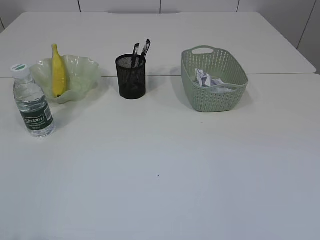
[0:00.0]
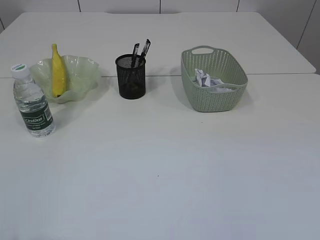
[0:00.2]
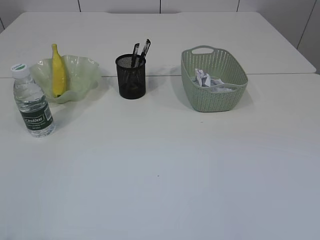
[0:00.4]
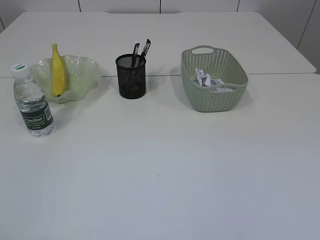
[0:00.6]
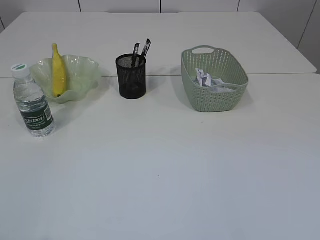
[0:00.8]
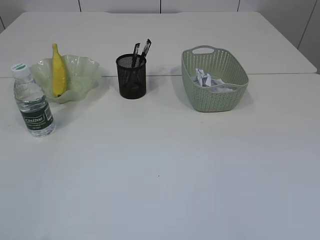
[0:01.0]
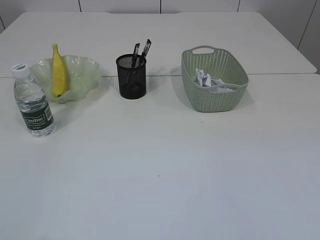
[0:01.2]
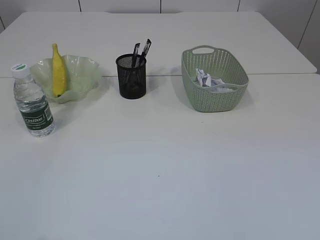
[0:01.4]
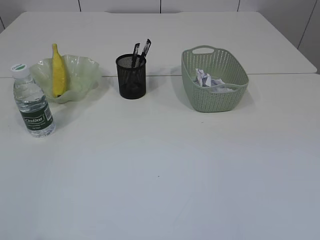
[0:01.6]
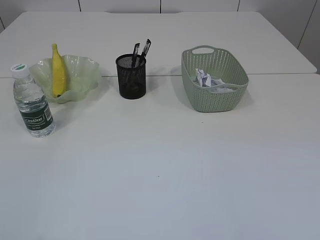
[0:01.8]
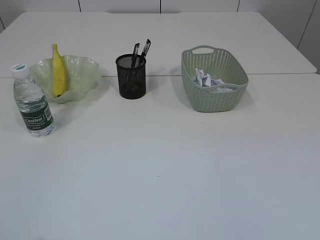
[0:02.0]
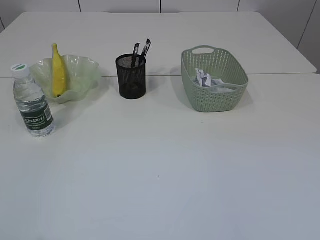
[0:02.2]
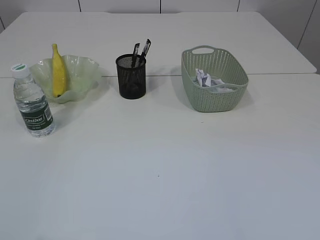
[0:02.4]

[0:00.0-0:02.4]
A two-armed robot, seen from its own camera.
0:01.2 to 0:02.4: Neither gripper changes place.

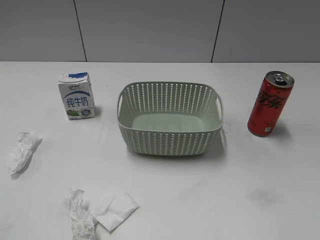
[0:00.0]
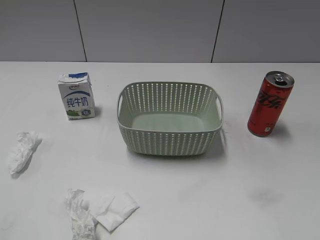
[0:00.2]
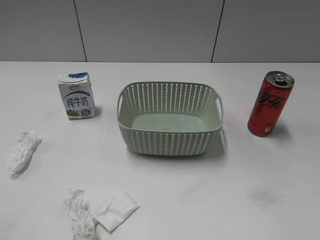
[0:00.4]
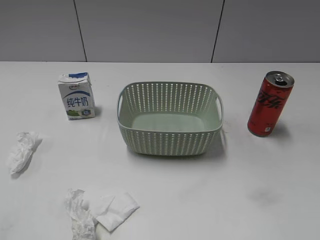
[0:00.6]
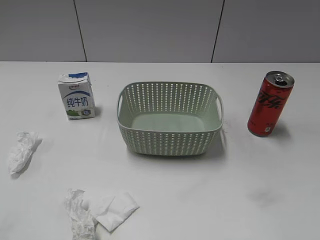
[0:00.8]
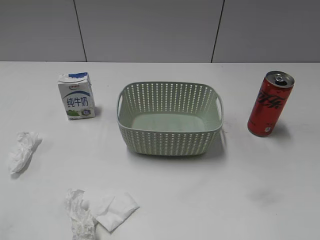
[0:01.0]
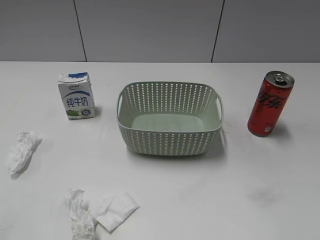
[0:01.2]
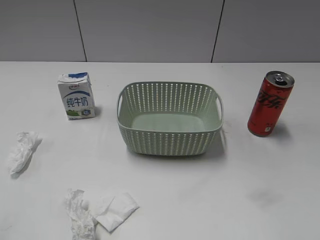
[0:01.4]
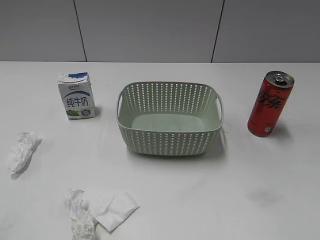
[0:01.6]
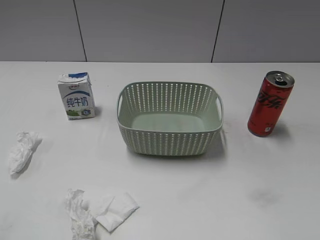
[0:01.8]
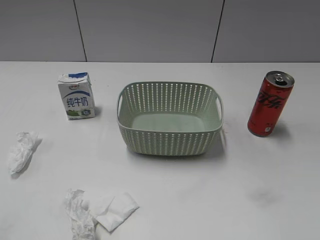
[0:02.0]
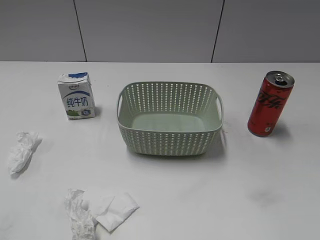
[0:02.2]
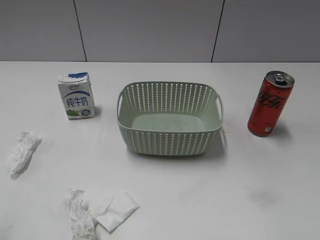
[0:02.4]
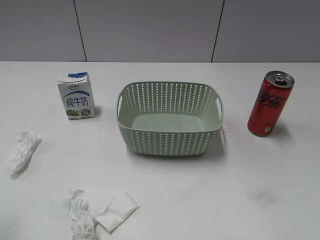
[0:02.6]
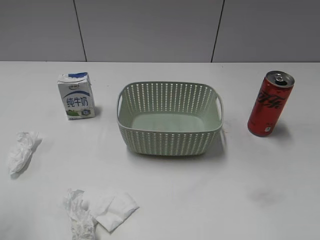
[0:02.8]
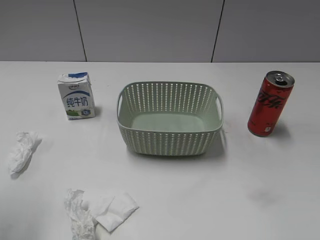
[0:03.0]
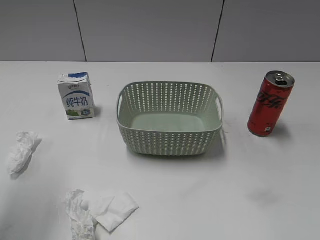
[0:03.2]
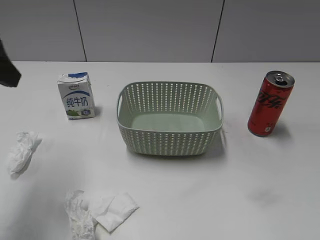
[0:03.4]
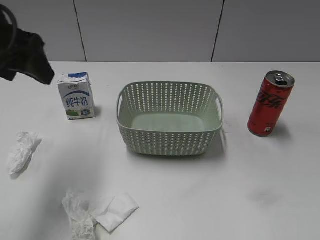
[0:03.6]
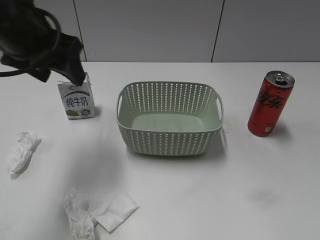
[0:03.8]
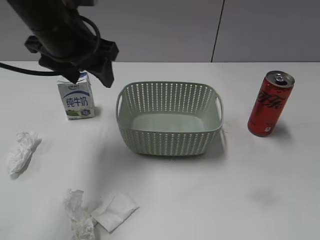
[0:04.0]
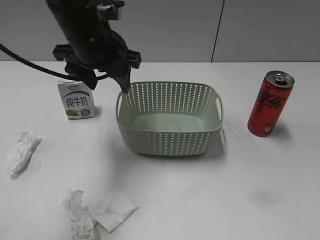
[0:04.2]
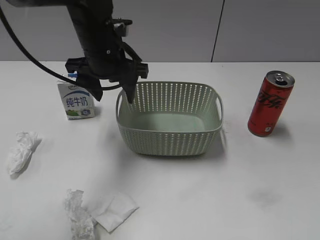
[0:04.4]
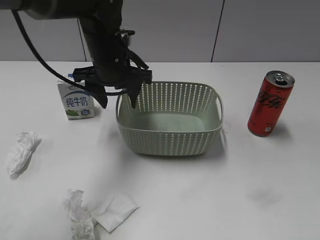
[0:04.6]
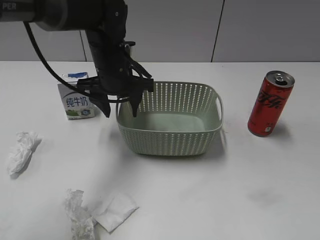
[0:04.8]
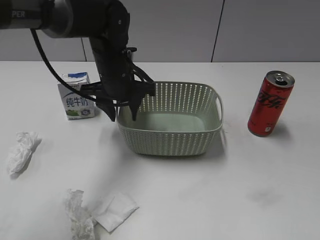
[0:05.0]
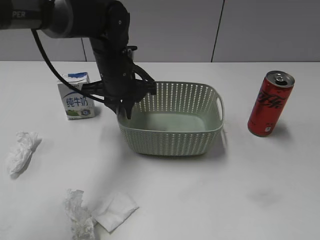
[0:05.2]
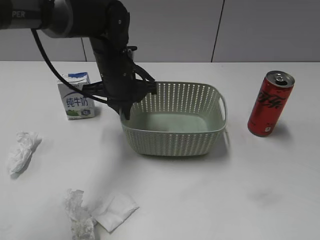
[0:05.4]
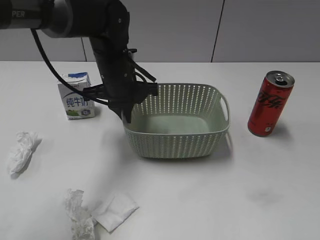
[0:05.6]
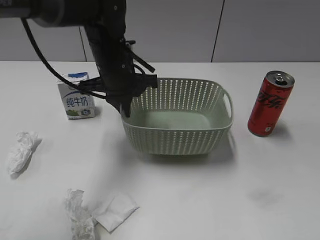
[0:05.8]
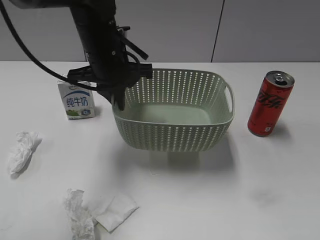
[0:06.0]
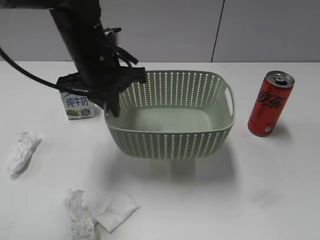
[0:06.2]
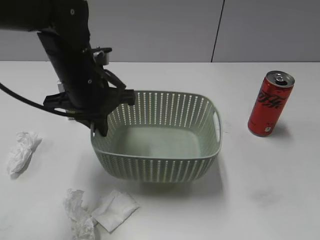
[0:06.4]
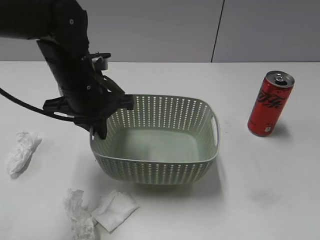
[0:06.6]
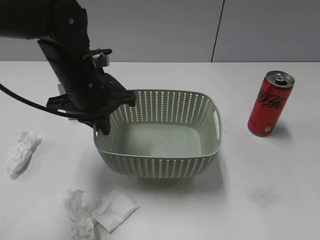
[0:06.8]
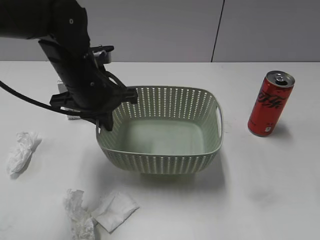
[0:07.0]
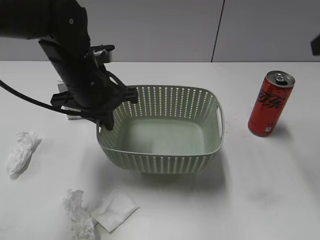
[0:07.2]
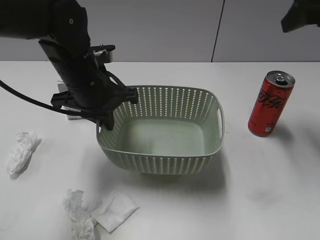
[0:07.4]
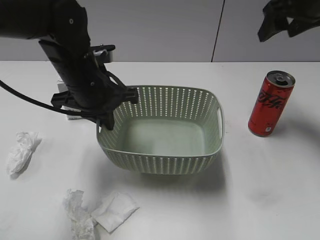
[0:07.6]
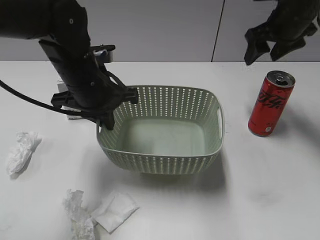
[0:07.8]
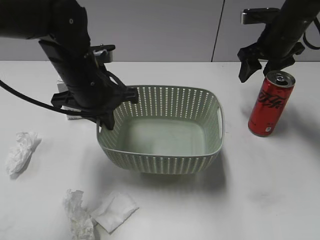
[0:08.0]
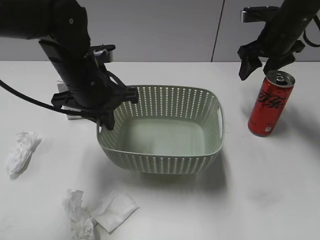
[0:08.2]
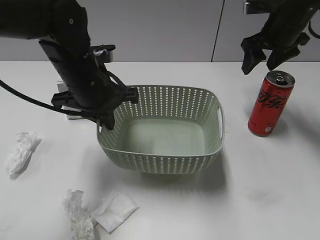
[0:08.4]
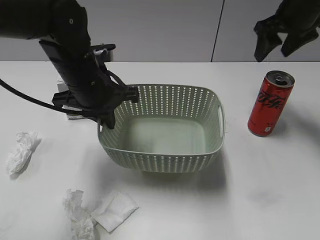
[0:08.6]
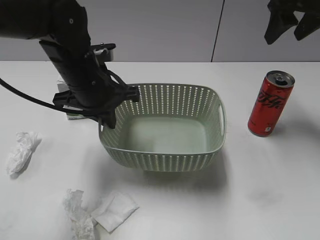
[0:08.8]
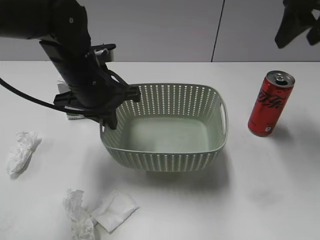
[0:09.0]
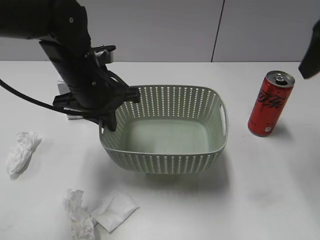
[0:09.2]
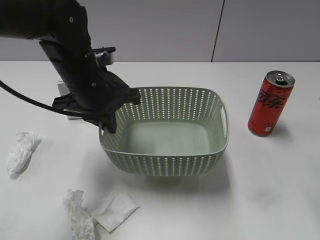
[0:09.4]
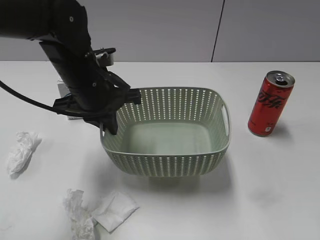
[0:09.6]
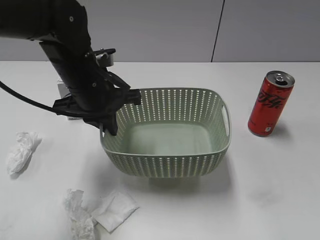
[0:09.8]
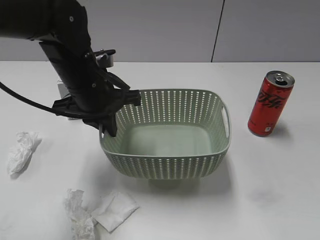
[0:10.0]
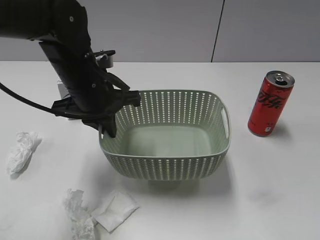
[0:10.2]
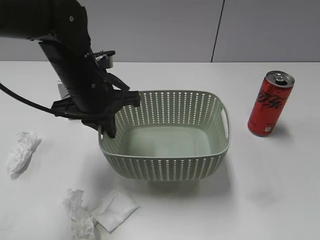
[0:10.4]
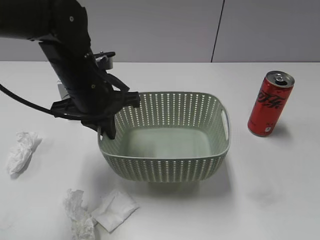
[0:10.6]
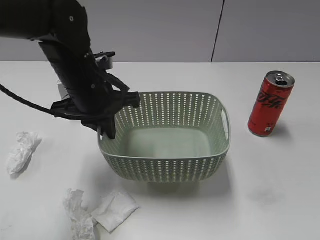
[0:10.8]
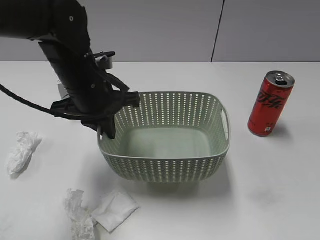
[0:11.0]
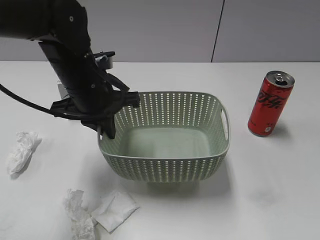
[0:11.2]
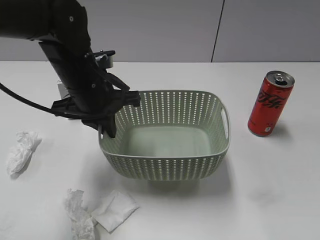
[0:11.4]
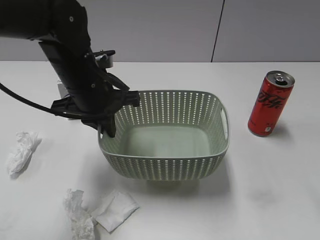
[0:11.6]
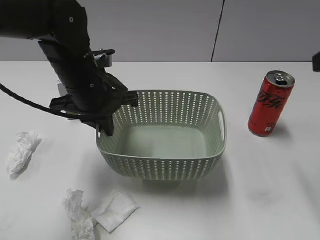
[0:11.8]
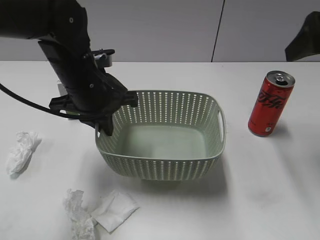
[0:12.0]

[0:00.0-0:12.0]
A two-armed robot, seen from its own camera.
Step, 0:03.4 to 0:05.4: Grasp the basket with left gripper.
Step, 0:05.6 to 0:07.0: Lift the basket with left gripper.
0:01.6 to 0:03.0: The left gripper goes about 15 cm forward.
0:03.0 to 0:04.4: The left gripper goes roughly 30 cm to the right, forward and downward.
0:04.4 to 0:06.0: The left gripper closes its fingers.
0:06.0 to 0:07.6: The right gripper is displaced forward by some 40 cm, and opens.
0:07.6 to 0:09.0: The right gripper shifts about 15 cm backward and upward.
0:09.0 to 0:10.4: The right gripper moves backward, approximately 30 cm.
0:10.4 to 0:12.0: The right gripper is displaced forward by about 30 cm, and opens up.

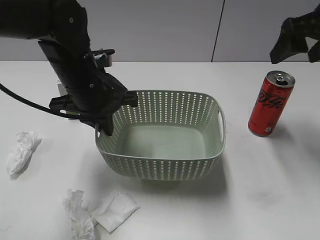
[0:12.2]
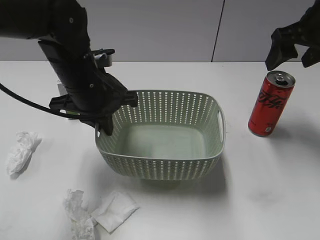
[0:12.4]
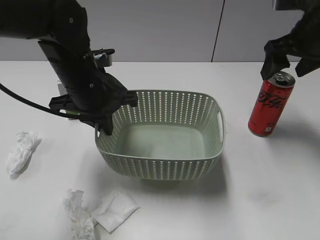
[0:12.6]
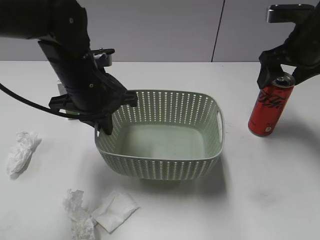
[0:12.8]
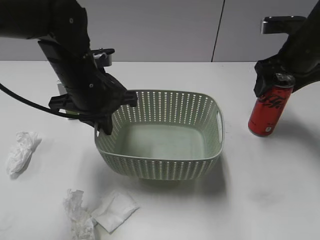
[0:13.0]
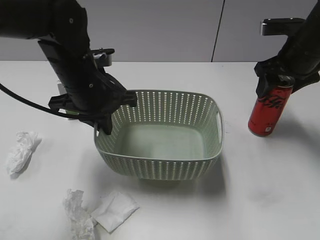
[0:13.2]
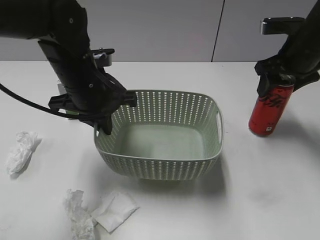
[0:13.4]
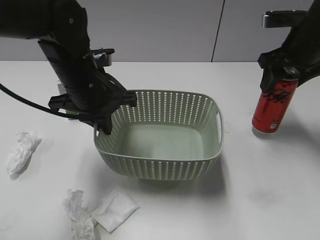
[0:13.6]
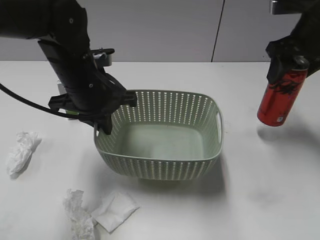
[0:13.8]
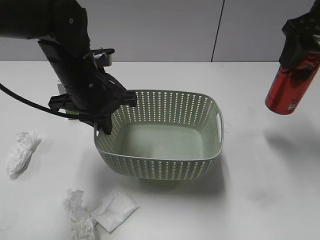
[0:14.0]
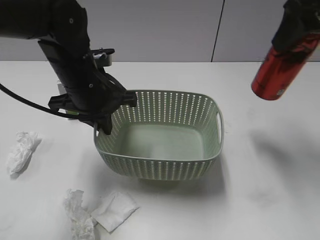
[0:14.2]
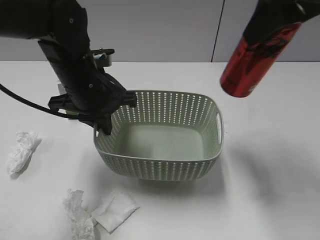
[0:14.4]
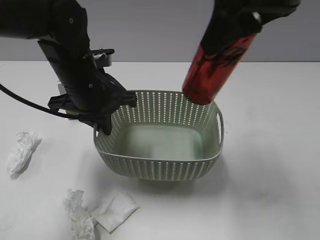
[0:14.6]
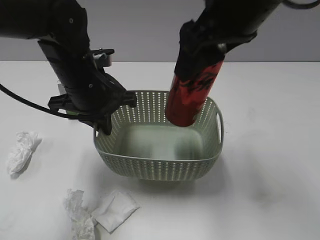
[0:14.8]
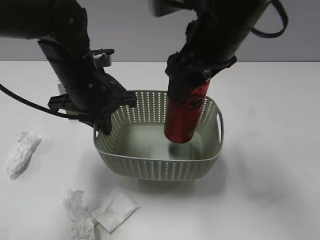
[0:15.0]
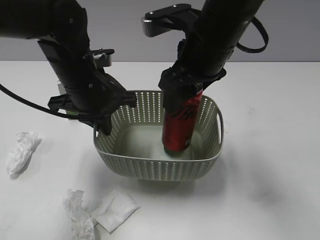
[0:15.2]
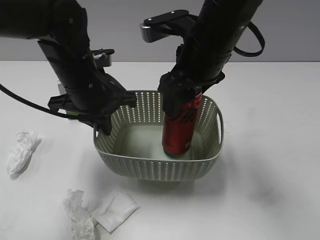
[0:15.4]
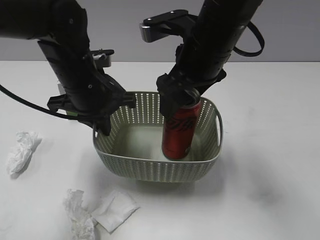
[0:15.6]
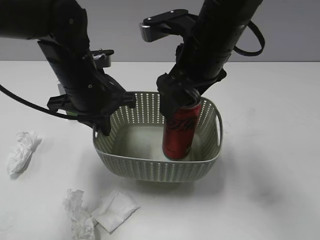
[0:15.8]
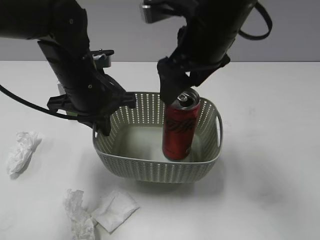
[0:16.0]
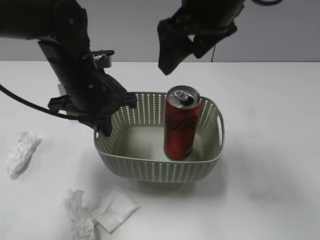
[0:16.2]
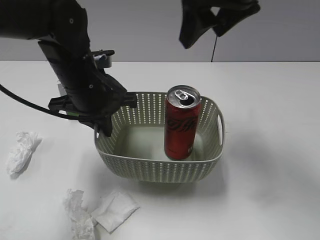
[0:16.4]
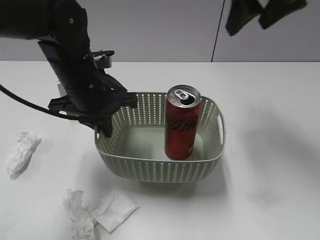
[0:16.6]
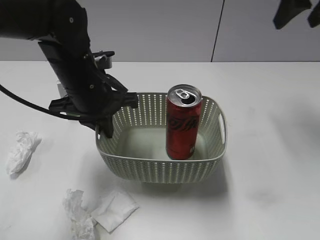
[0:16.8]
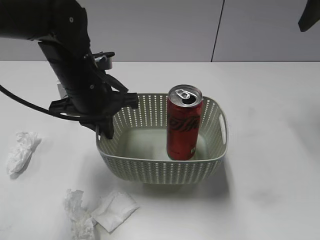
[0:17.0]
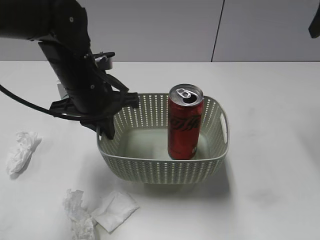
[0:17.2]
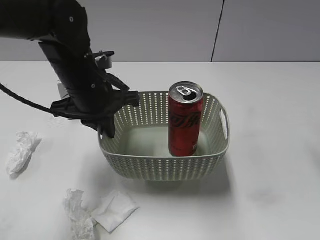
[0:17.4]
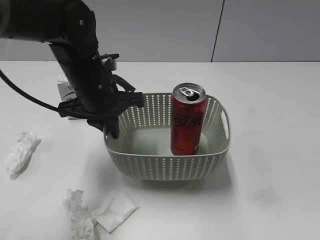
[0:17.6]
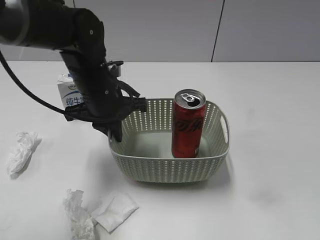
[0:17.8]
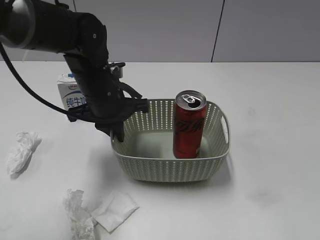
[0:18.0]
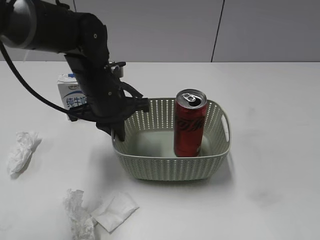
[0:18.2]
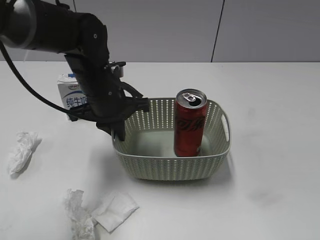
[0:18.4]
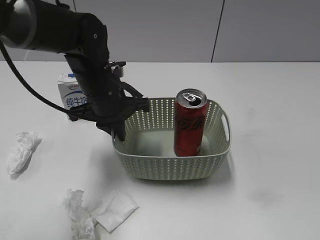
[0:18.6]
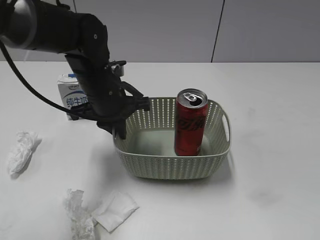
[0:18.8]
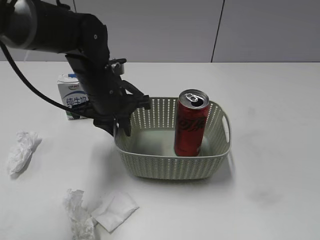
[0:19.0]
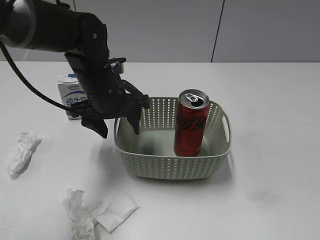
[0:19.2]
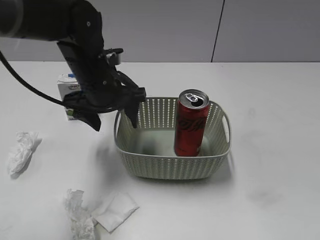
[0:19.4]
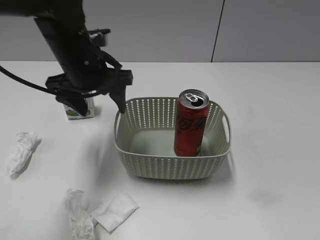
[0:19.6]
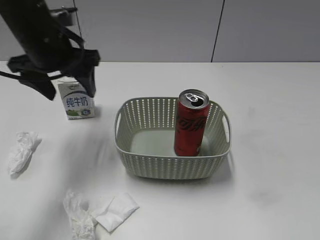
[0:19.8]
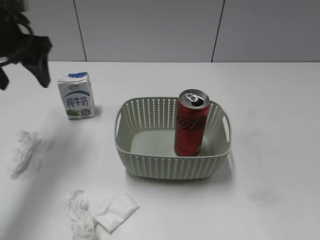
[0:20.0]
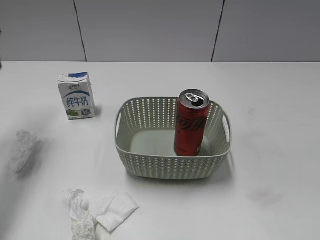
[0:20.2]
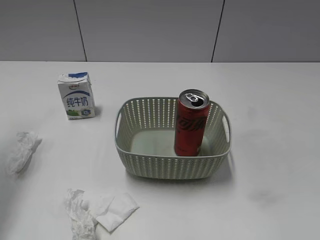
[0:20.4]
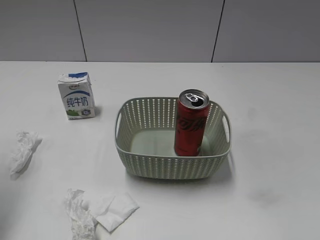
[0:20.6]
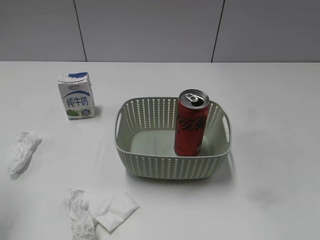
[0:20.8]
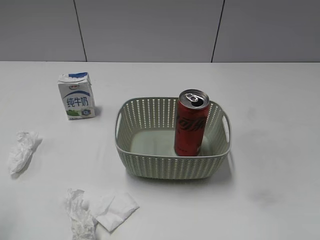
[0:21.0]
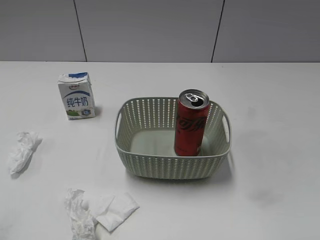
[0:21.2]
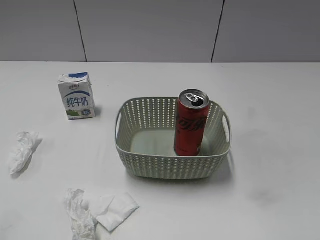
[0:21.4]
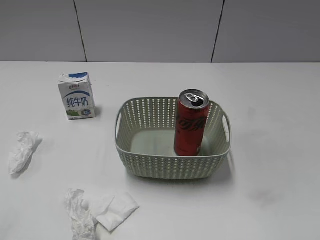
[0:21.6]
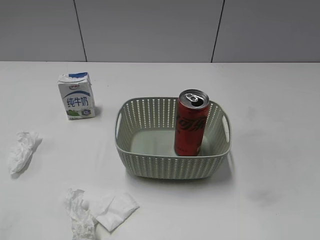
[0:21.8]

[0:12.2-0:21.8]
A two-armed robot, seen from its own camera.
Step, 0:13.4 to 0:15.6: Place the cola can in the basket with right gripper.
0:12.2 to 0:13.8: The right gripper travels downward and back again, some 10 cm each way, and closes up.
0:13.8 to 0:15.4: The right gripper is displaced to the left by approximately 20 cm, and opens its fingers.
0:15.4 to 0:17.0: The right gripper heads to the right and upward, covering approximately 25 cm.
0:17.0 to 0:18.6: The right gripper heads backward, covering roughly 35 cm.
0:18.6 to 0:20.2: The left gripper goes roughly 30 cm to the left and upward, and opens.
0:20.2 to 0:21.8: The left gripper heads backward, covering about 30 cm.
